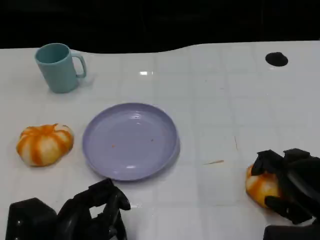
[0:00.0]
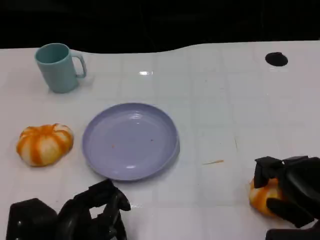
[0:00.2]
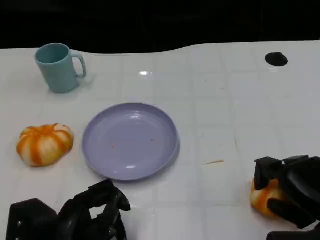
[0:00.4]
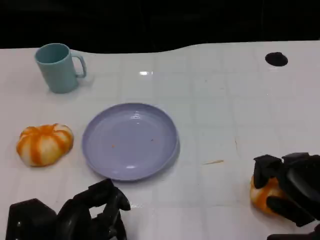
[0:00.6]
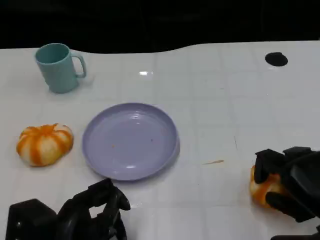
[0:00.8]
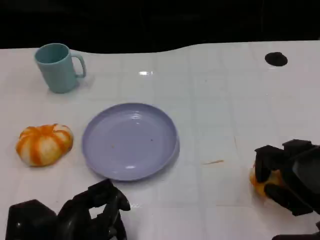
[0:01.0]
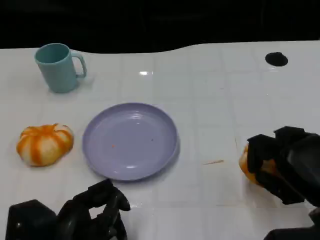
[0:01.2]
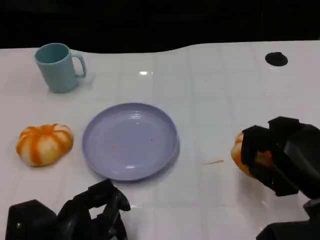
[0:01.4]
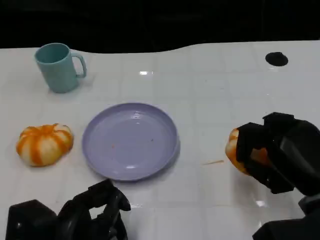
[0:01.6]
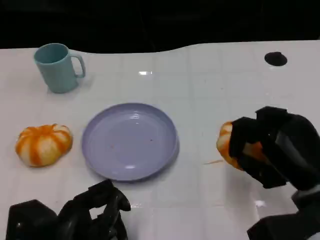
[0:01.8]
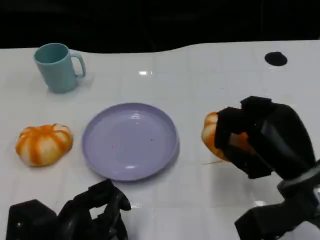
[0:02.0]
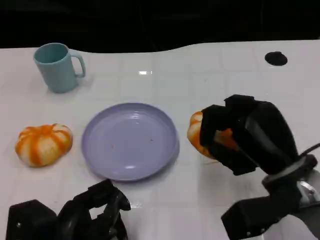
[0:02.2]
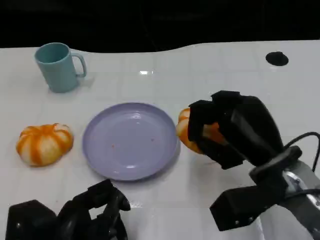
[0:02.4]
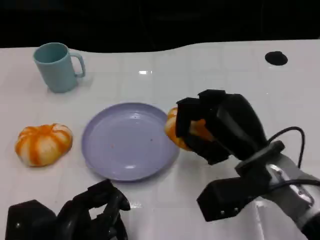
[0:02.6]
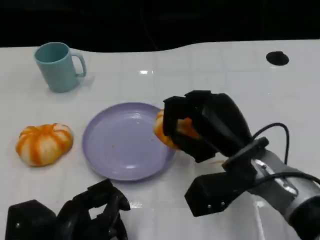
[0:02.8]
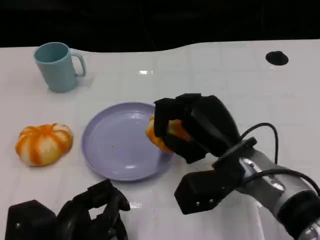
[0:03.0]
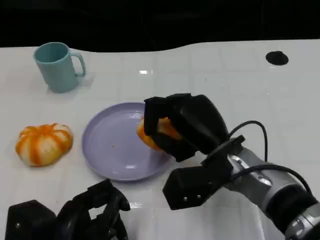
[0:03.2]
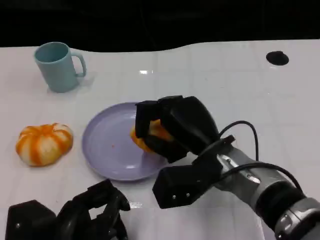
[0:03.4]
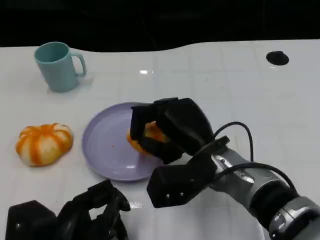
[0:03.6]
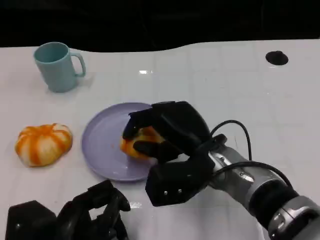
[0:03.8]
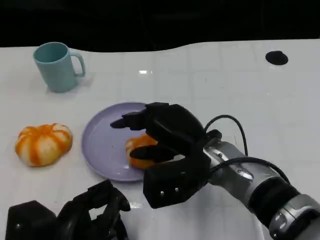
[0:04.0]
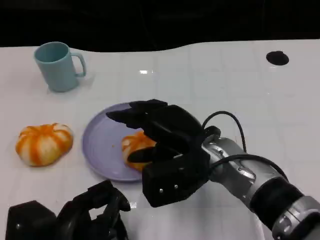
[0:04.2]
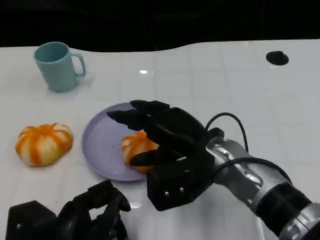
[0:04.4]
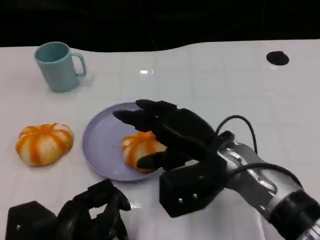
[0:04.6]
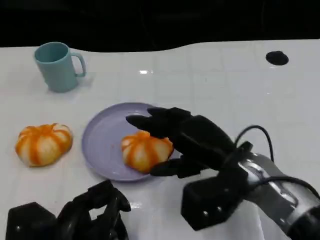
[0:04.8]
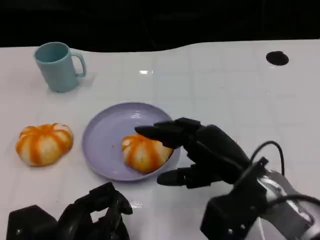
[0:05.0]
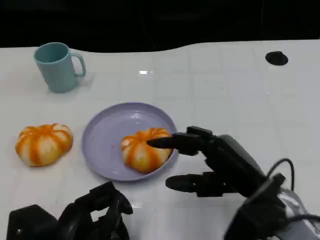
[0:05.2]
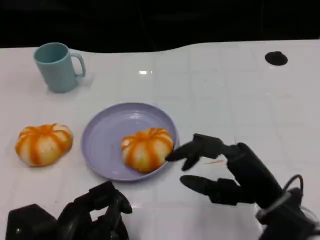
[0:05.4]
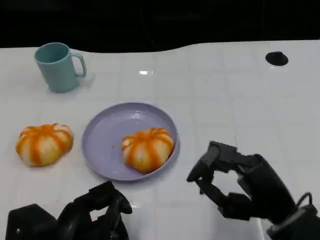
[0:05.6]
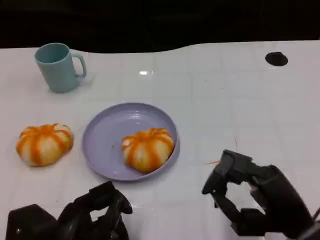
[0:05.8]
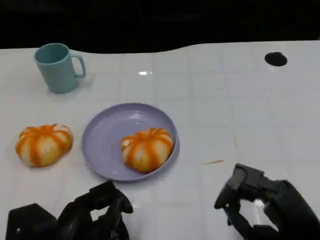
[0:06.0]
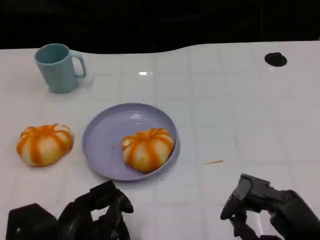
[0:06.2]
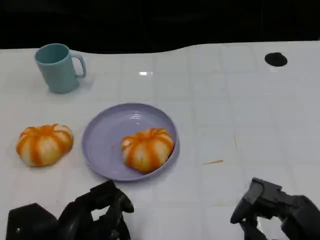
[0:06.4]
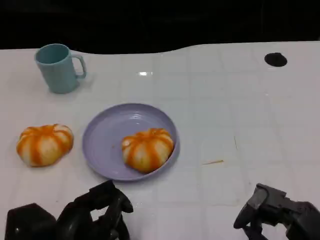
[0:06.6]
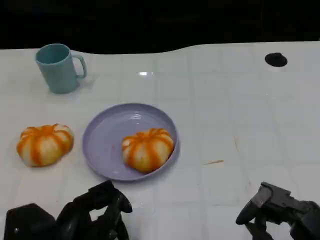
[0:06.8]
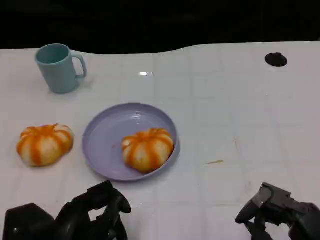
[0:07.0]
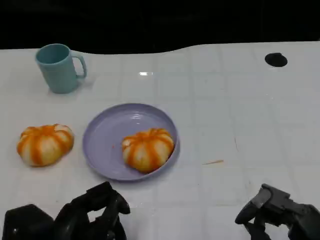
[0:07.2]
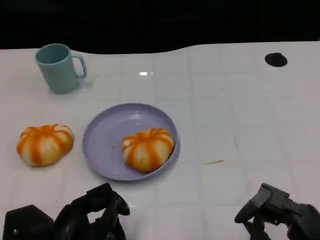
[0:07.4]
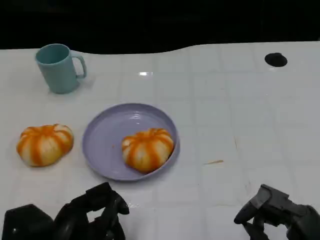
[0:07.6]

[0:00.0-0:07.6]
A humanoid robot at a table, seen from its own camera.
Task of the whole recording: Grasp the bread from the table and place it into the plate.
0.0 to 1.6 s: The right hand moves approximately 5 cm.
1.6 to 3.0 s: The right hand moves to the left and forward, roughly 15 cm.
4.6 to 6.0 s: The right hand goes about 15 cm backward and to the right.
6.0 to 7.6 s: There are only small adjustments of the hands.

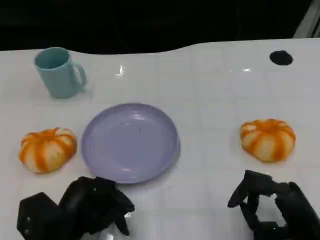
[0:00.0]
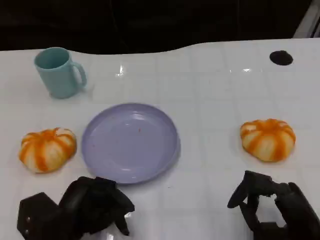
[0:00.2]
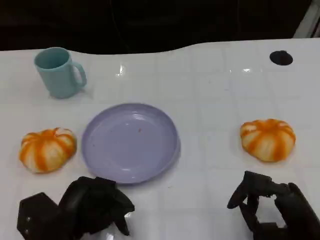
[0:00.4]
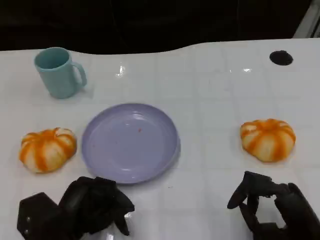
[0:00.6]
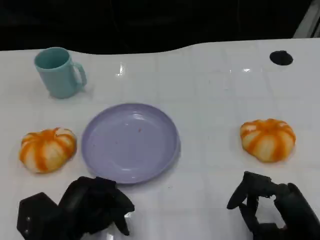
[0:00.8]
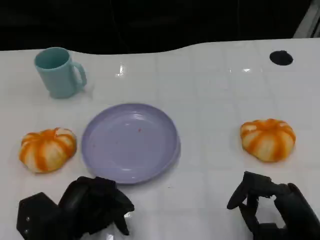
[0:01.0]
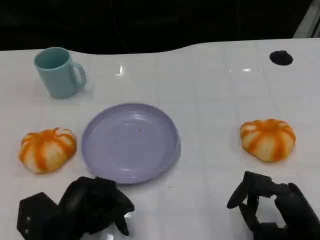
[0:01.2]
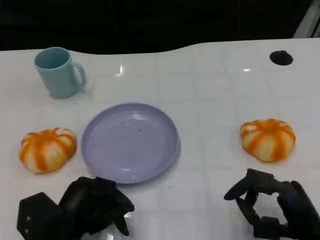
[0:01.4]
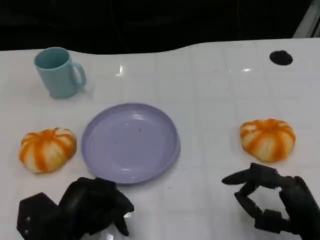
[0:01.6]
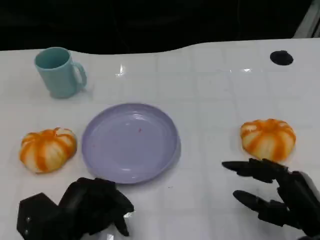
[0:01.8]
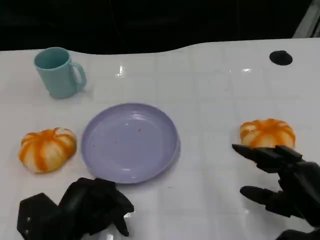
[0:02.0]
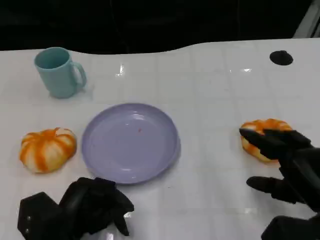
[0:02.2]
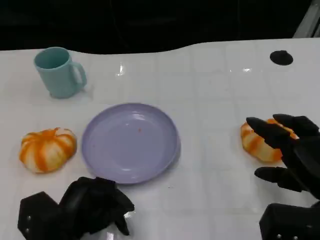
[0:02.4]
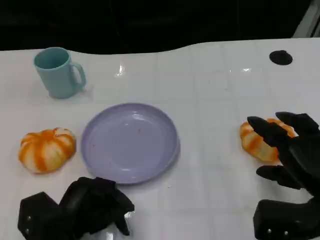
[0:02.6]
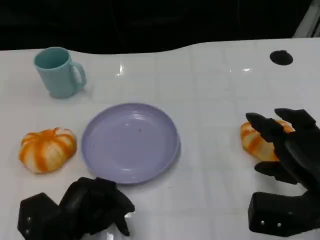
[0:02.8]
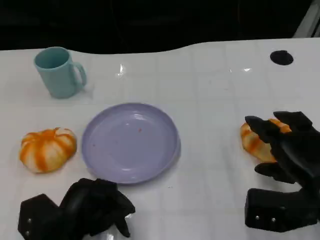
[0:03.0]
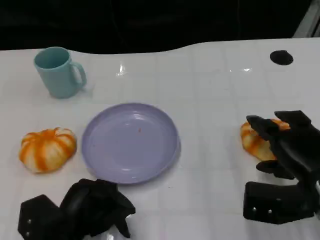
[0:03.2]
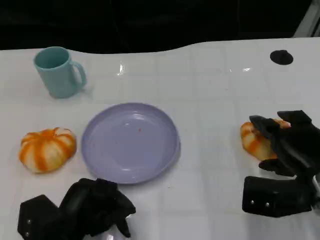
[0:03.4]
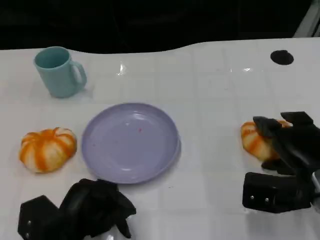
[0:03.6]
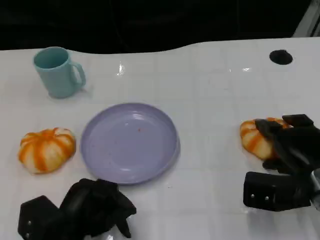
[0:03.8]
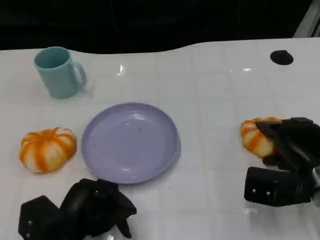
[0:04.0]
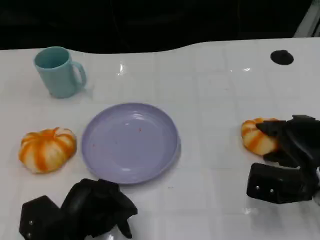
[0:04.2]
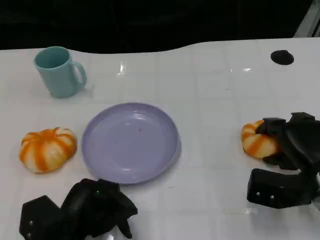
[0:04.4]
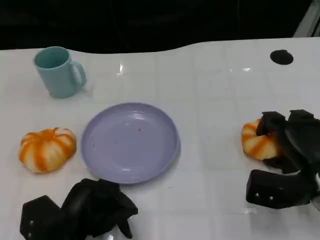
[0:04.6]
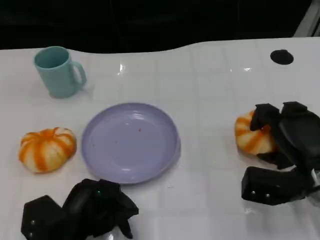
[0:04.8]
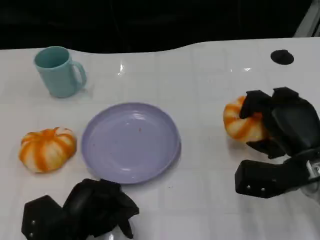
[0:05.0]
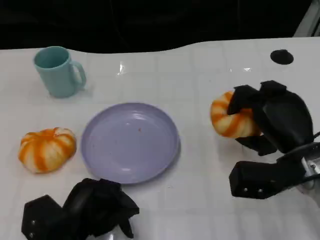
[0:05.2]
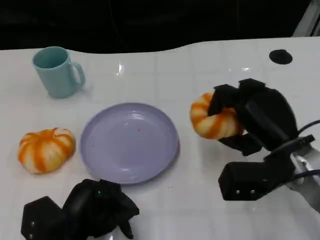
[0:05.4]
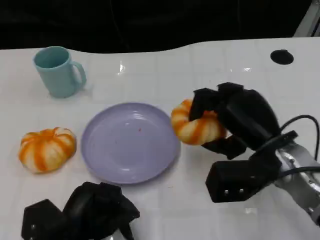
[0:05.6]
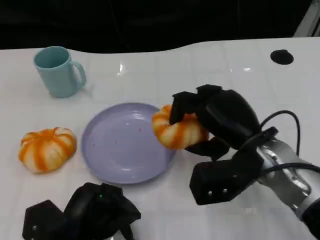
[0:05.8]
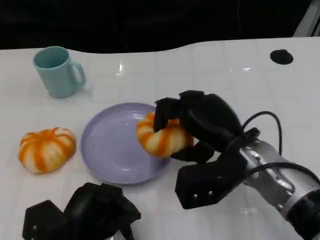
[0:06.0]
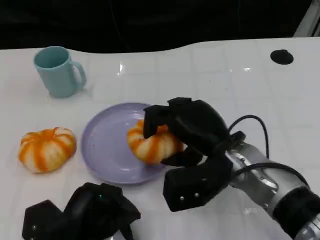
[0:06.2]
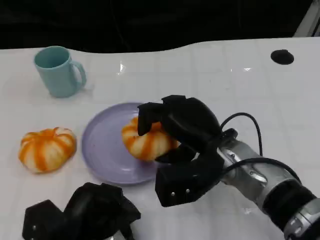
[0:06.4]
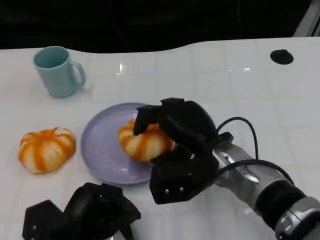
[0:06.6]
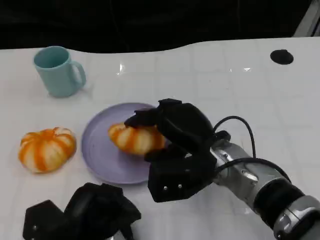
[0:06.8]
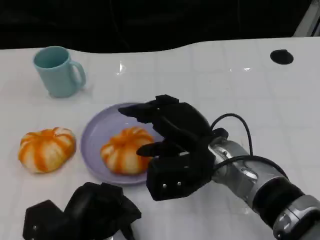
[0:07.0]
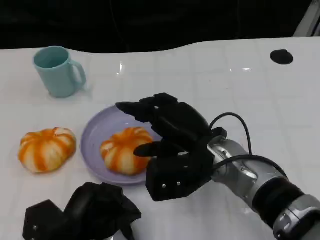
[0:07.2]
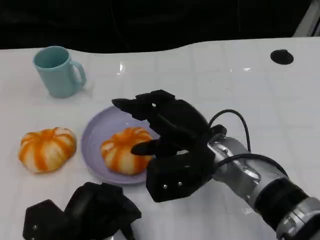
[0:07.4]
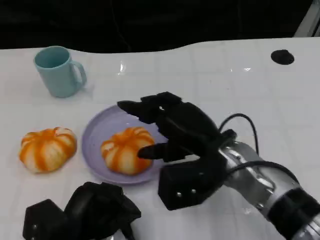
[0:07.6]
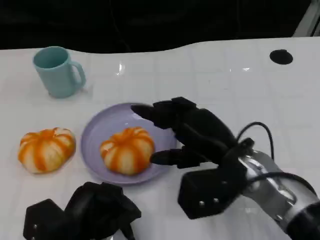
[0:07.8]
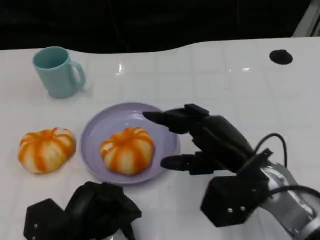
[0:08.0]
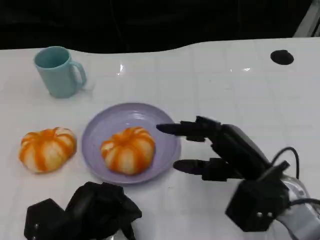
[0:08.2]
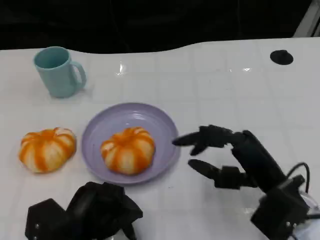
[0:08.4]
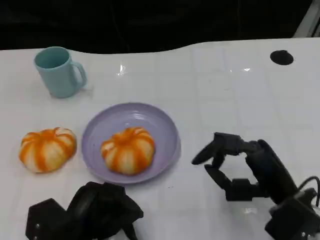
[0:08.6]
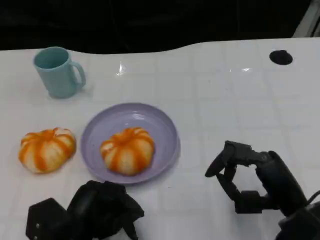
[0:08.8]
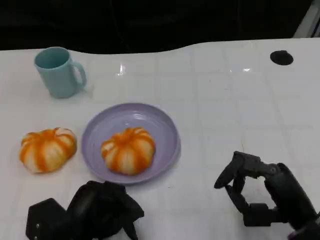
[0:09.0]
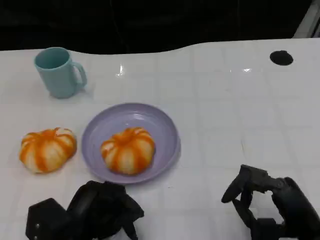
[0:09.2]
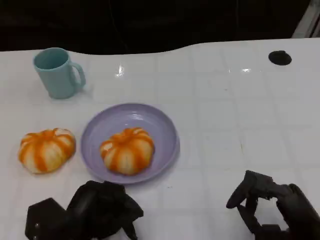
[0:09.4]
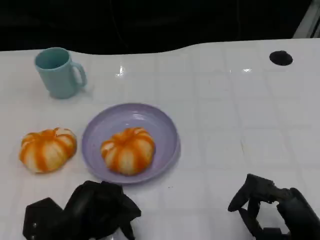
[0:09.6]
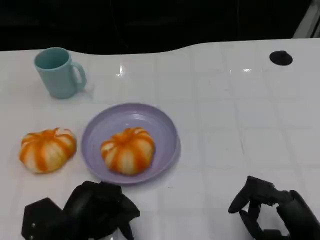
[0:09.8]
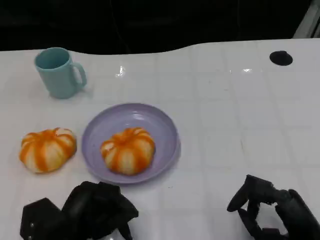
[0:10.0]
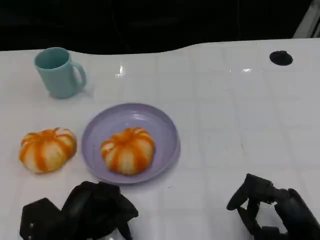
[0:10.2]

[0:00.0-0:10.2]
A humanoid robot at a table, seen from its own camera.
Task of the whole recording: Grasp the bread from the table and place it into the plate.
0.0 to 1.4 s: Both hands stay about where they are.
1.4 to 3.0 s: The right hand moves forward, roughly 5 cm.
3.0 to 4.4 s: The right hand changes place by approximately 5 cm.
4.4 to 5.8 s: The right hand is displaced to the left and upward by about 15 cm.
5.8 to 7.2 s: The right hand heads to the left, covering roughly 5 cm.
7.2 to 8.8 s: The right hand goes roughly 15 cm to the right and backward.
8.8 to 10.2 s: The right hand ends up about 5 cm from where it was.

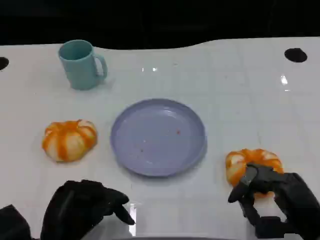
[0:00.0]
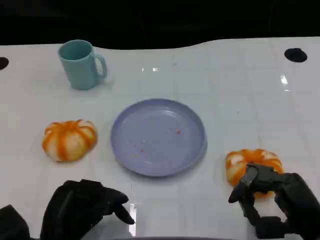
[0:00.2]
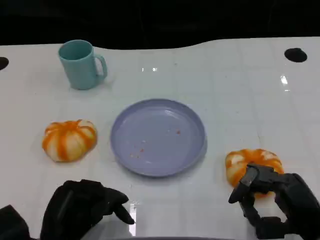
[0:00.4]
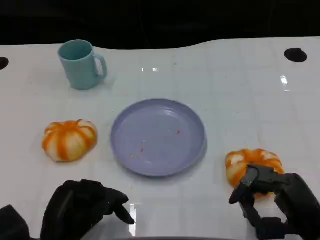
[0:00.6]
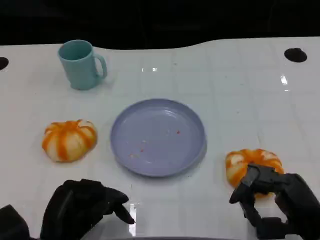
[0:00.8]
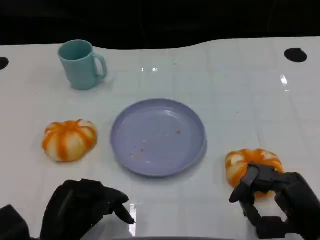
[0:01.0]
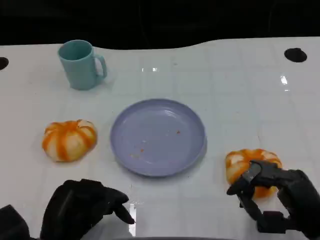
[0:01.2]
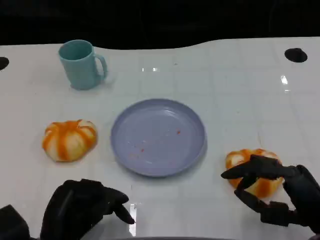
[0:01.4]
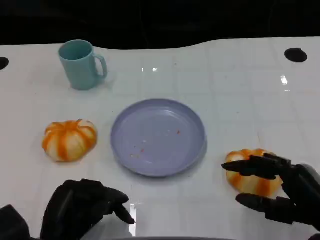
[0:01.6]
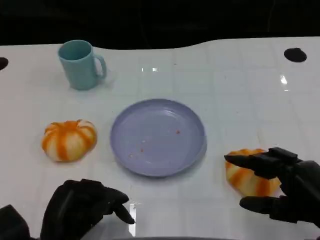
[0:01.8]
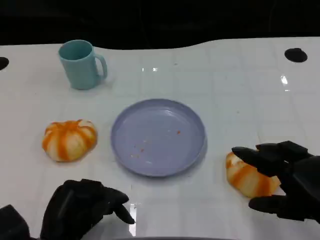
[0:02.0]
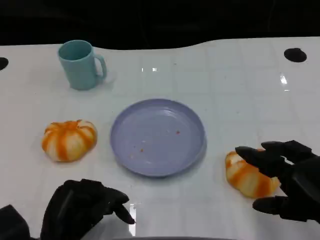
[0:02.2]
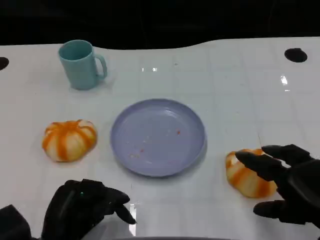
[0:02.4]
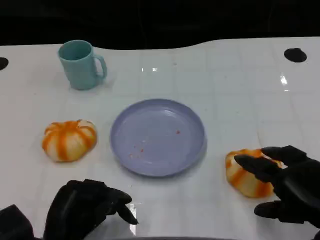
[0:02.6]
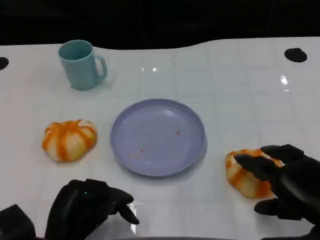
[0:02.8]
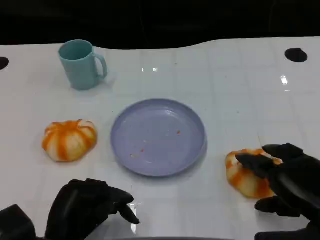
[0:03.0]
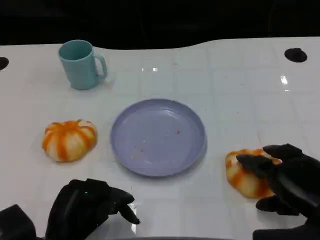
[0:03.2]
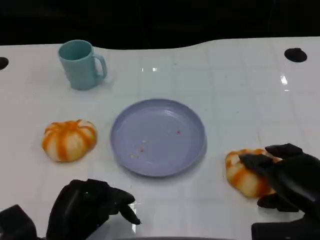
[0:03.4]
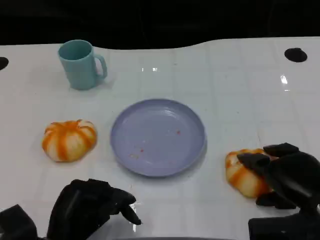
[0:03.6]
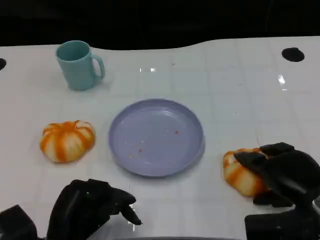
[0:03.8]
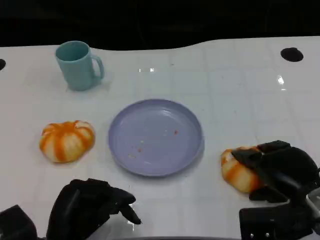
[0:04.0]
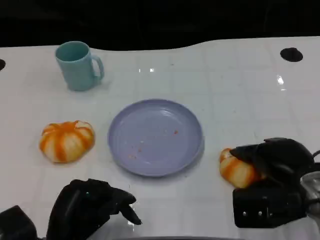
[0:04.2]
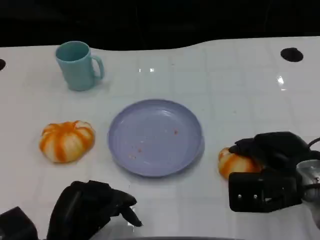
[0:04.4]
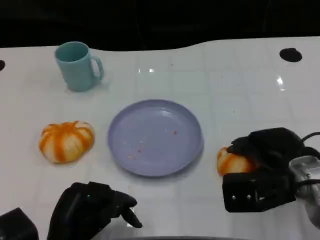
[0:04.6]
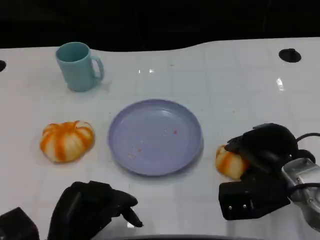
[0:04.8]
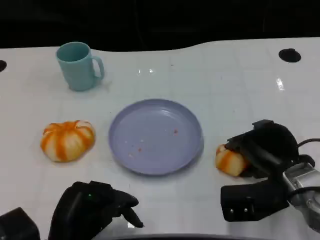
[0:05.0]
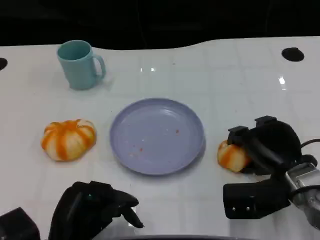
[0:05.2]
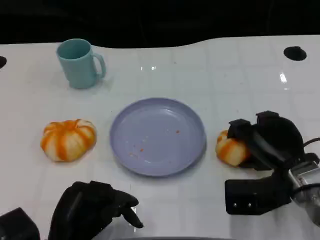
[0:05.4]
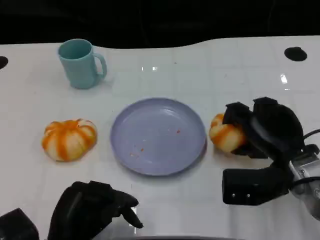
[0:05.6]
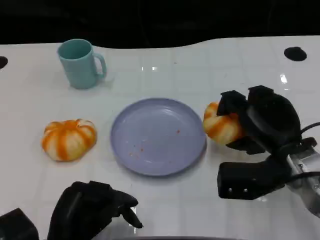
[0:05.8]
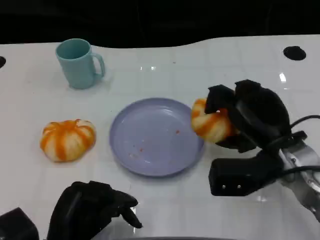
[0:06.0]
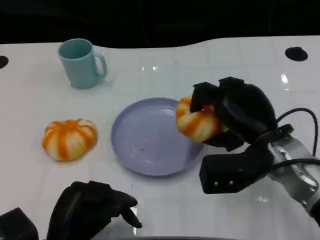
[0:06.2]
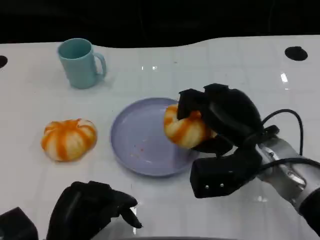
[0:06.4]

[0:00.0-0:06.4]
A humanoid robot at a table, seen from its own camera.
Task of the whole recording: Grasp the bread from the table and place it into the plate.
3.2 to 4.8 s: The right hand travels forward by some 5 cm.
4.8 to 6.4 s: The right hand heads to the left, covering some 5 cm.
